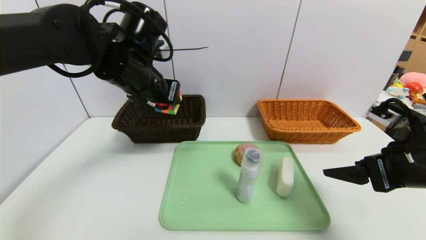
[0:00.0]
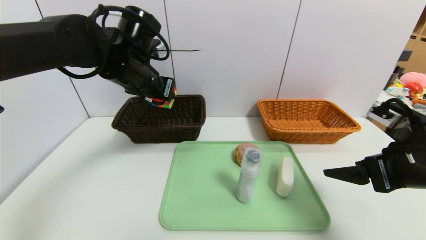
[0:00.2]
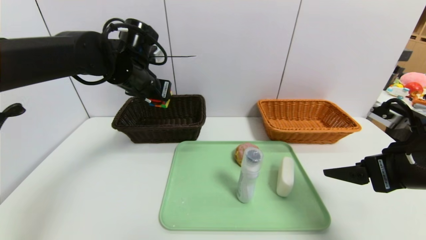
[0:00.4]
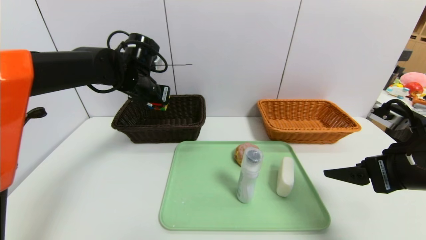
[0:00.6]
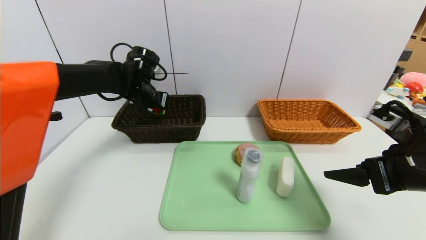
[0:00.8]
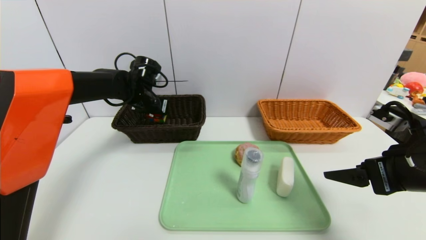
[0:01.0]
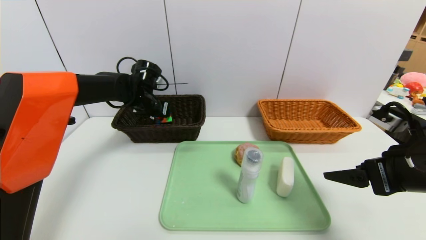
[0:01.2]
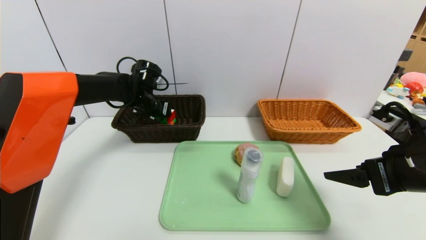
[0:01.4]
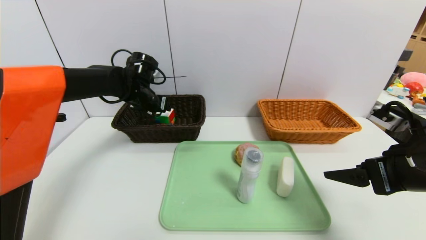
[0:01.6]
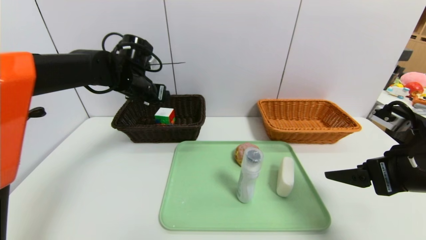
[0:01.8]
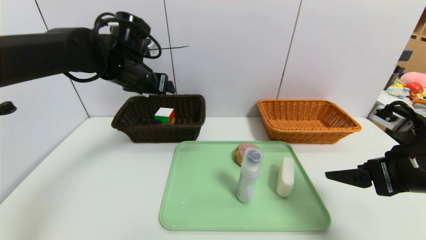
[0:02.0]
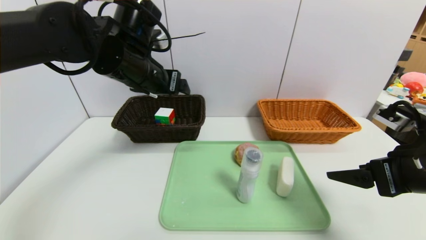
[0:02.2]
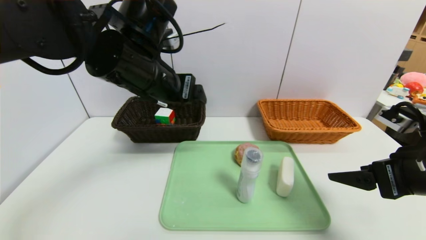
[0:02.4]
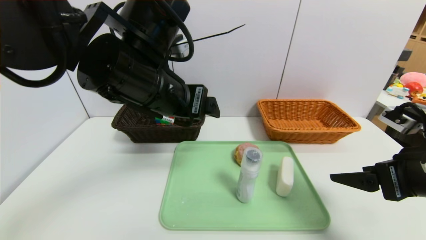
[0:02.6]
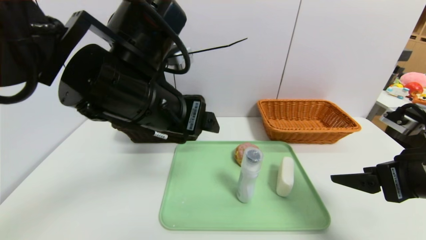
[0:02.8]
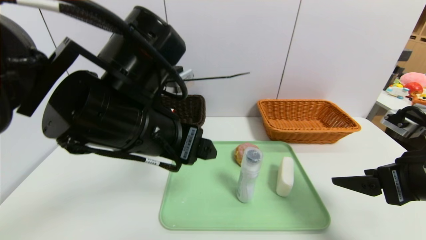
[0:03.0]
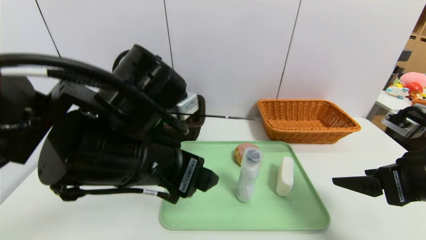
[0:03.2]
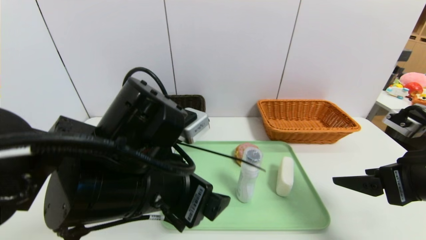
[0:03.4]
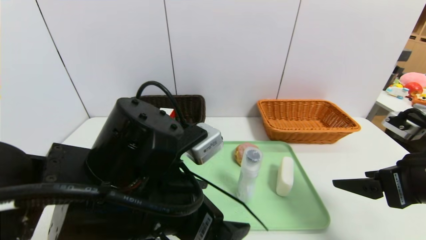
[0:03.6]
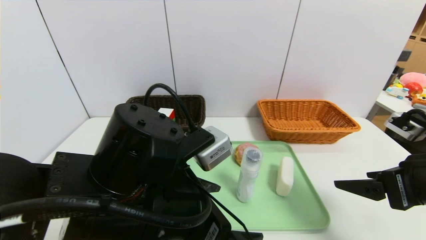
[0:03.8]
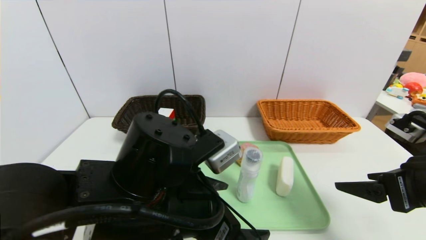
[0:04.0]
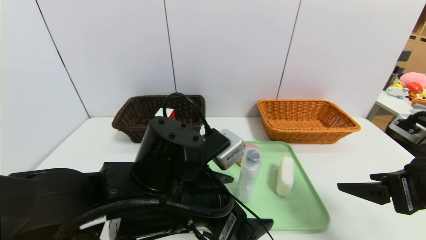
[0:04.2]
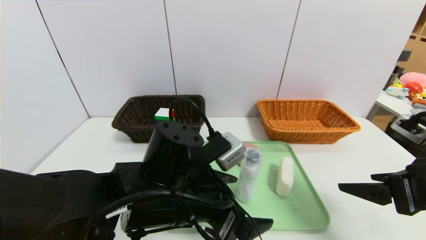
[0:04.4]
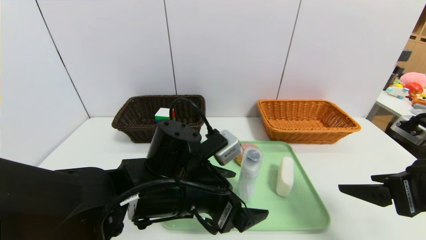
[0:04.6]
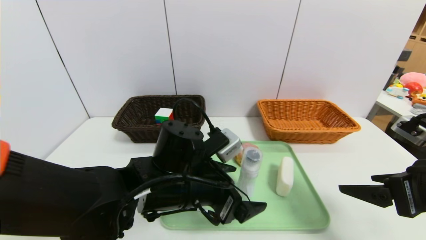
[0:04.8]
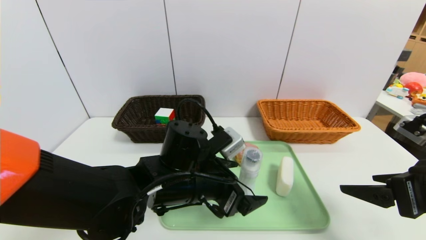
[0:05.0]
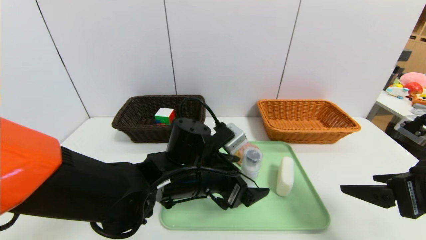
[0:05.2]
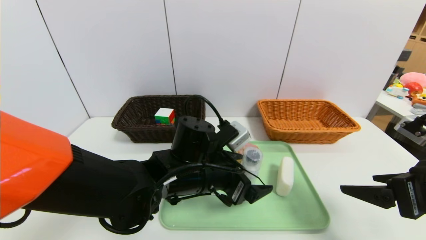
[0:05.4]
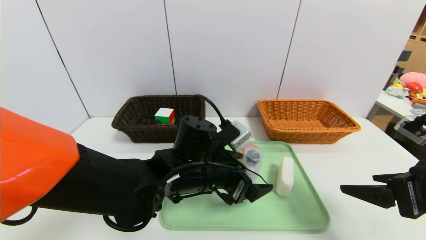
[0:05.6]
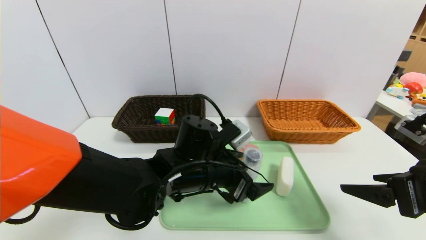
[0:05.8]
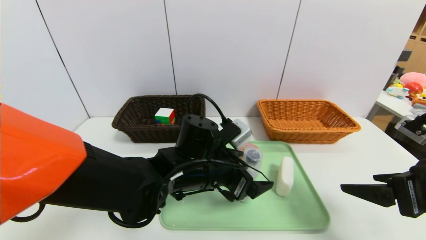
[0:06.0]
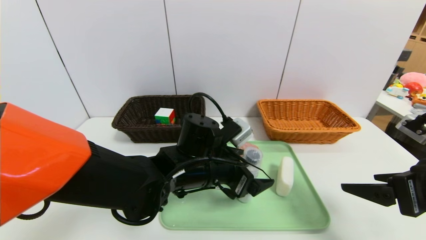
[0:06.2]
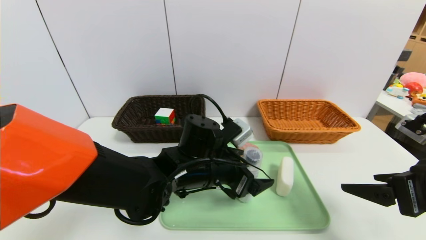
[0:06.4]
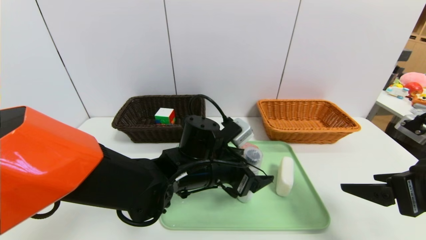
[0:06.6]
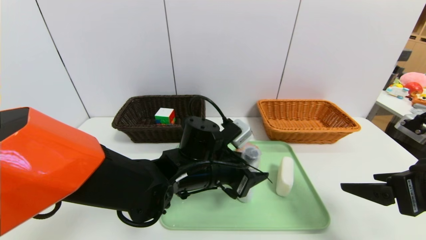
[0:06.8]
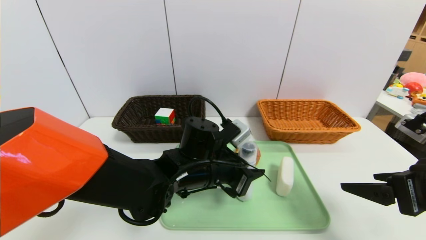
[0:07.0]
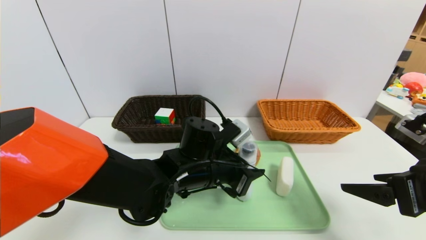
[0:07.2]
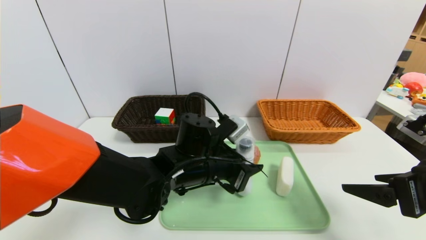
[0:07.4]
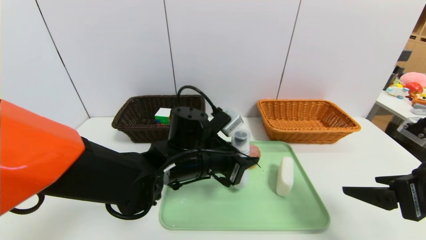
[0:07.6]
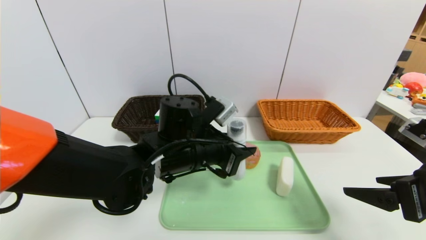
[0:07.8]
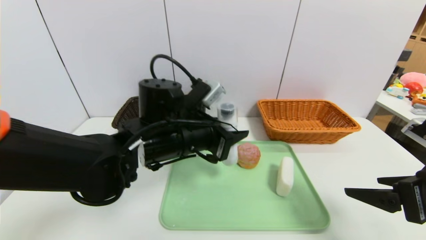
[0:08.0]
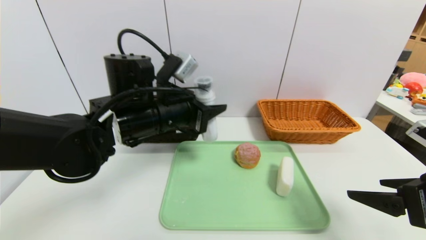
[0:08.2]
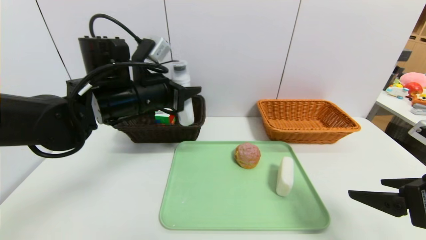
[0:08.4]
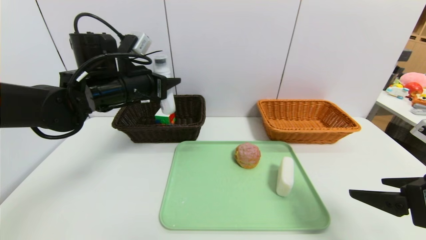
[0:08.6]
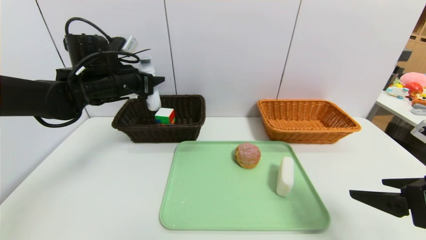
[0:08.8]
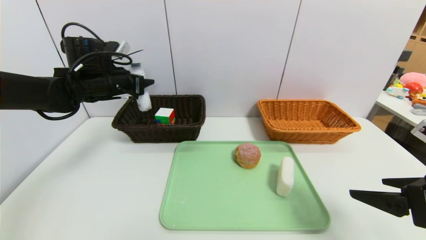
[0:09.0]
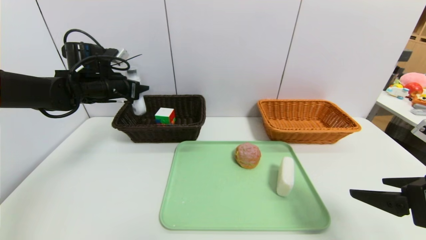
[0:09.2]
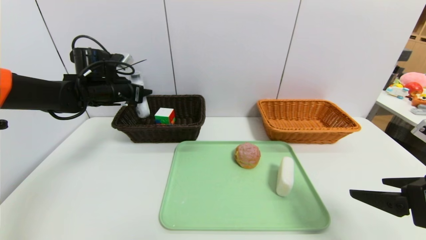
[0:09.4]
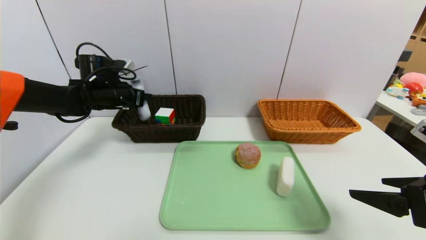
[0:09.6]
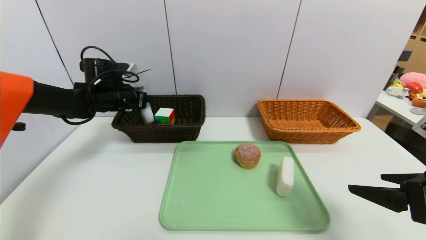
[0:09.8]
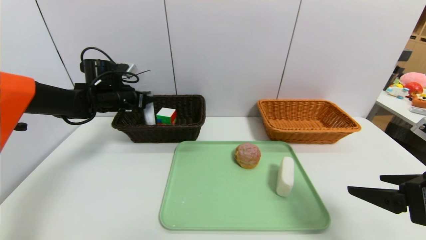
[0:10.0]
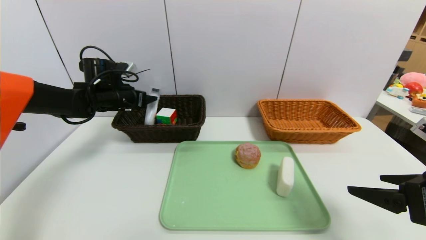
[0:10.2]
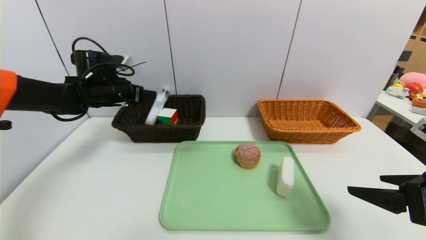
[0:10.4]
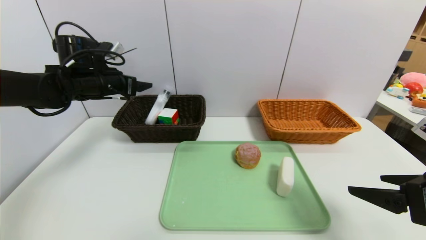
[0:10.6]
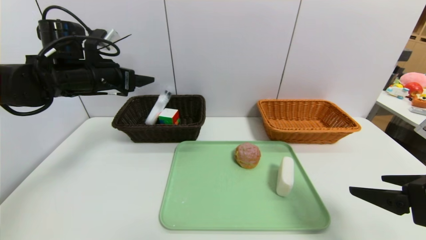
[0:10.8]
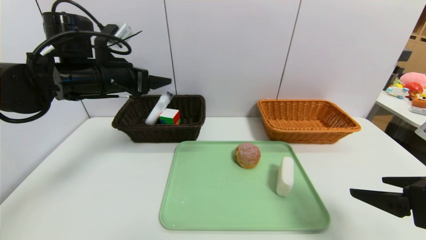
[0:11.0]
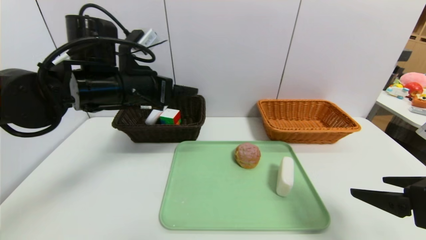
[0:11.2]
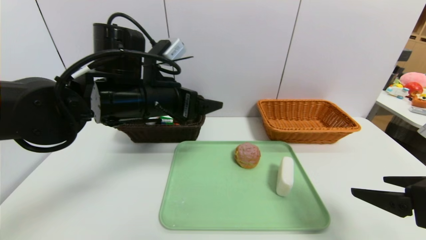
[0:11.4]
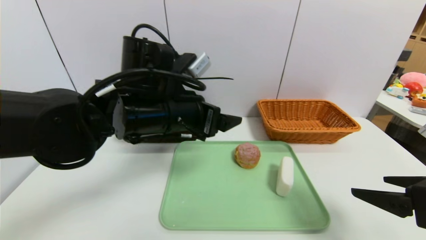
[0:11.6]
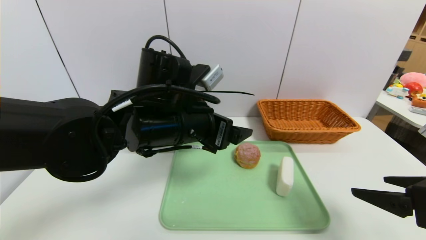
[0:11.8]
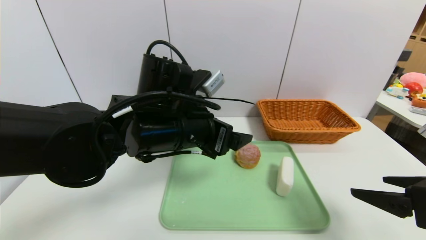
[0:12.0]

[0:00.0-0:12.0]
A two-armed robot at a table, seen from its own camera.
Task of the whole recording: place the food in the right basket with the right gripper, and place the non food items in the left basket with the left gripper.
Step, 0.0 to 2.4 s: Grasp the rubiks cube and put it in the left basket.
Step, 2.6 to 10.8 s: Grasp the detergent and put it in the left basket.
0.0 to 1.6 s: The left gripper heads forward, downward and to the left, covering about 15 cm, and opens.
1.6 to 3.0 s: The left gripper moves backward, approximately 25 cm.
3.0 to 4.4 s: The left gripper travels downward by roughly 10 cm.
4.4 to 6.0 s: The left gripper heads forward, covering about 5 cm.
6.0 to 7.6 s: The left gripper closes up.
7.6 to 9.0 s: The left gripper shifts about 25 cm to the left, forward and upward.
9.0 to 10.4 s: The left gripper opens its fingers.
10.4 to 12.0 s: The left gripper moves to the right and backward, some 30 cm.

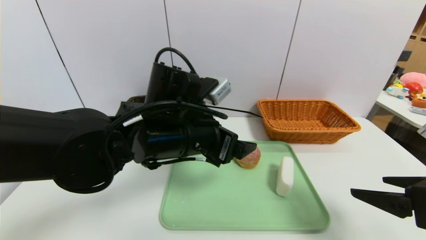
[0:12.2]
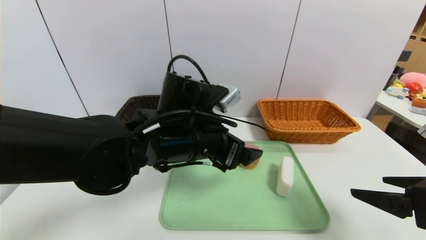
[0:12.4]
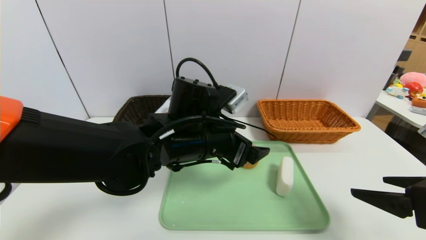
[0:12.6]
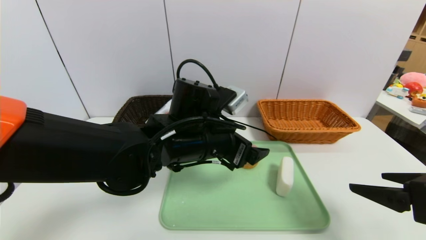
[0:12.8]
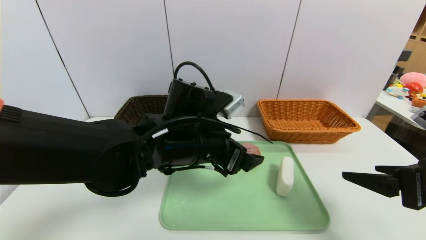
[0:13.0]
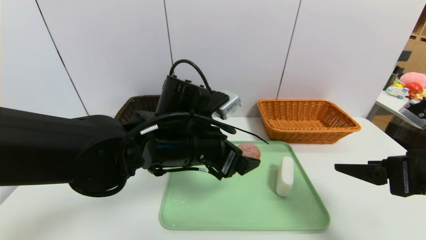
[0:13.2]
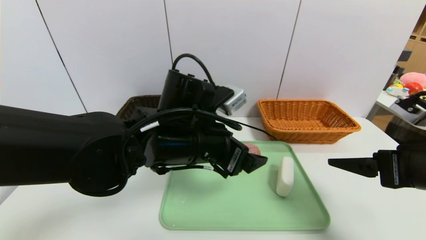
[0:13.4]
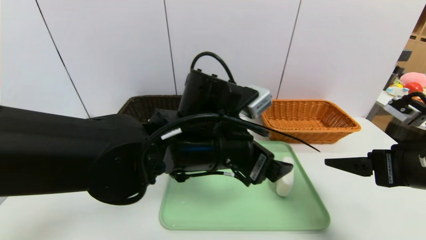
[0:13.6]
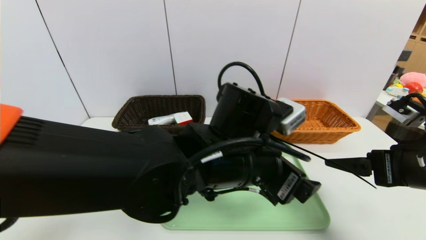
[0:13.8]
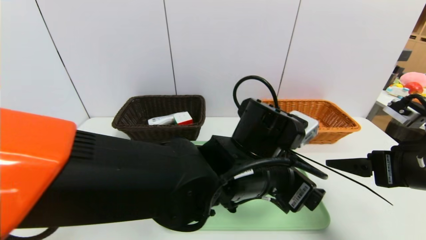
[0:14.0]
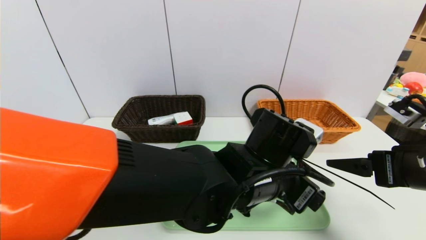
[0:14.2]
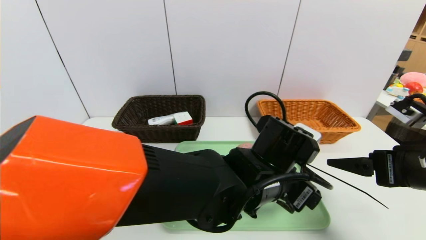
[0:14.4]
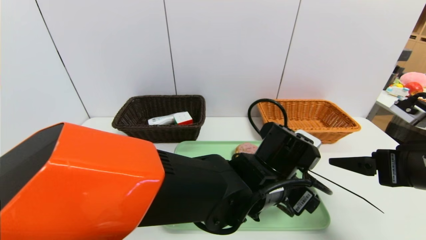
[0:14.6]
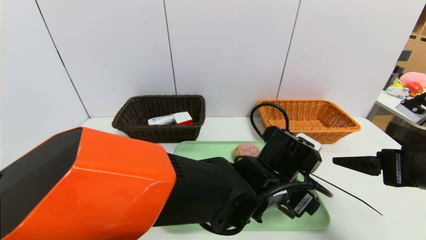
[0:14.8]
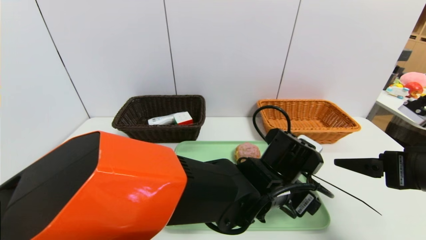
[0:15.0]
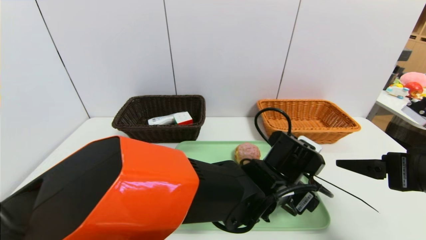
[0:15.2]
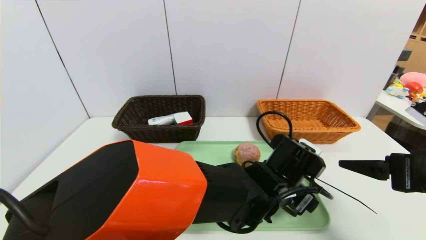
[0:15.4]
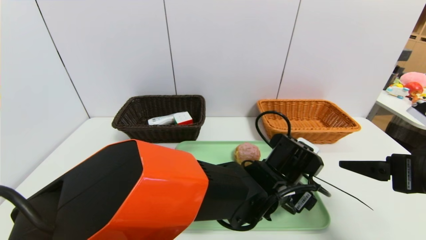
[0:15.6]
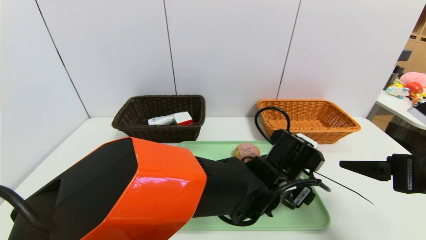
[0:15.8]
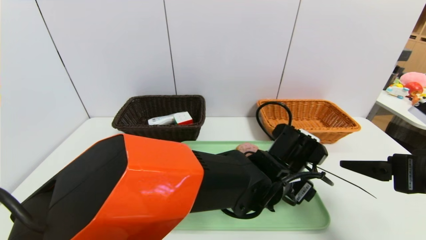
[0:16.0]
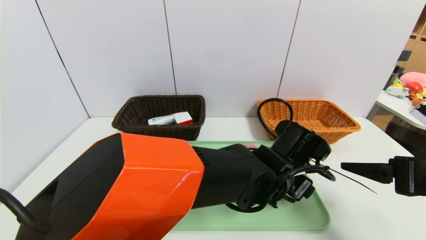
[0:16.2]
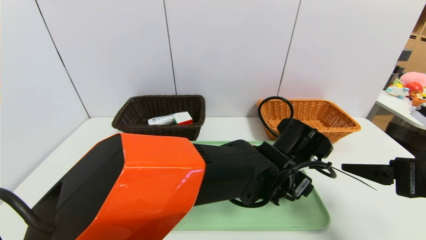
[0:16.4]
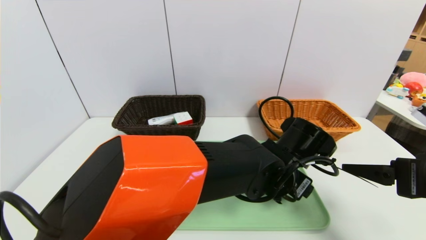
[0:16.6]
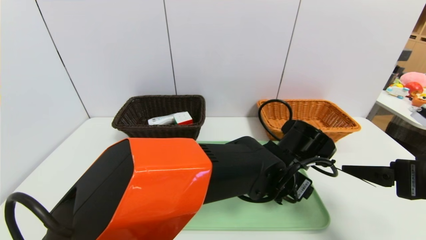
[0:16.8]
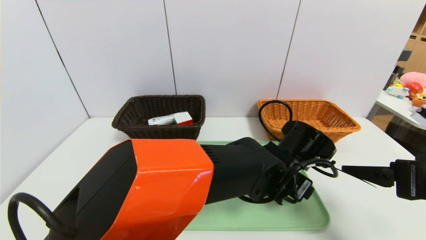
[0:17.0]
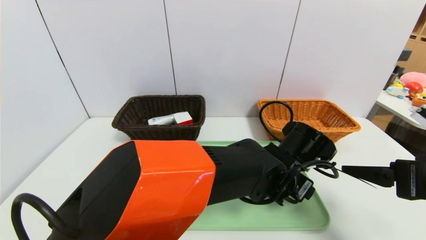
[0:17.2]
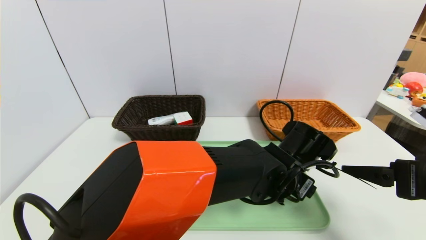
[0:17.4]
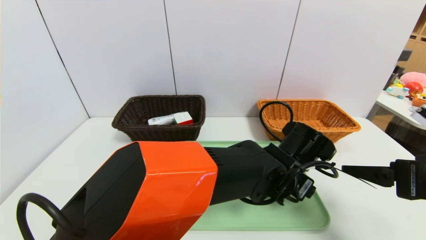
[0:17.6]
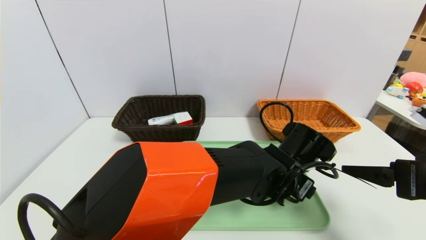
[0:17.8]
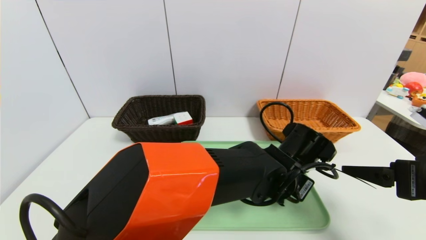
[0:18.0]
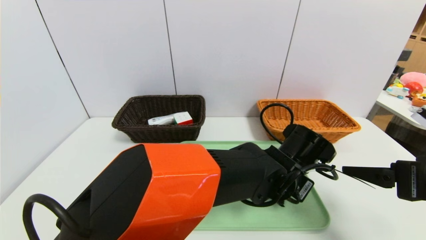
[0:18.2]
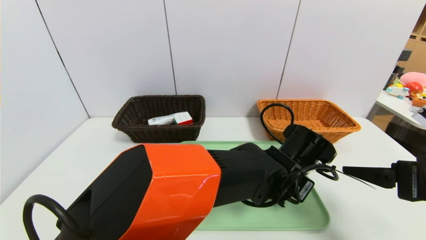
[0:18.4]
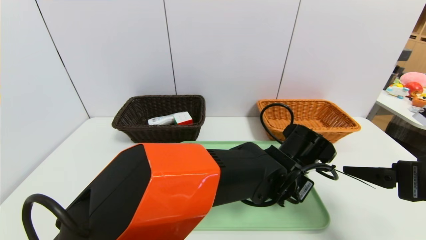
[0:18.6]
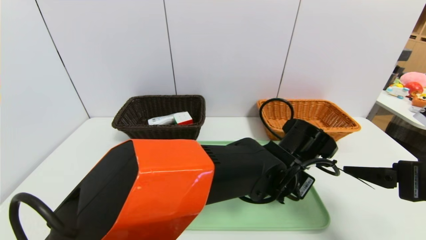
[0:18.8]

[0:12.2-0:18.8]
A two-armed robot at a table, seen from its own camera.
Task of the whole recording: place the food in the right basket with the right gripper, and place the non food items in the left basket with the left gripper.
12.2 to 13.8 s: The left gripper is displaced to the right by some 10 cm. The right gripper goes roughly 5 cm forward.
13.8 to 15.4 s: The left gripper travels downward and to the right by some 15 cm.
15.4 to 17.2 s: The grippers make only small movements.
17.2 to 18.8 s: The left gripper closes.
